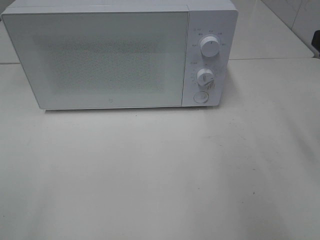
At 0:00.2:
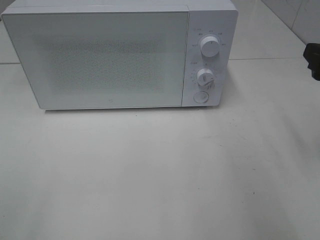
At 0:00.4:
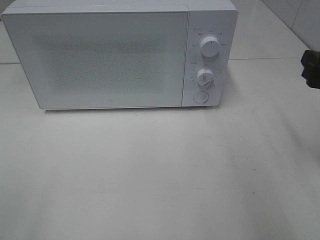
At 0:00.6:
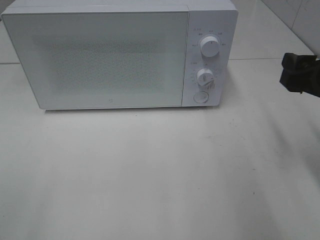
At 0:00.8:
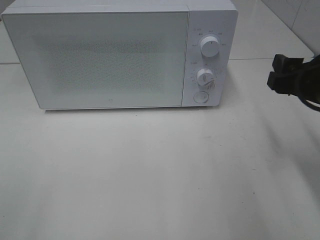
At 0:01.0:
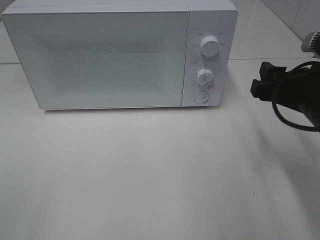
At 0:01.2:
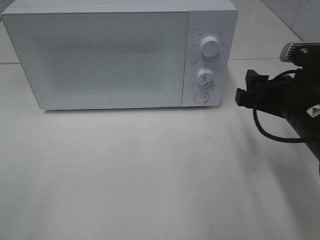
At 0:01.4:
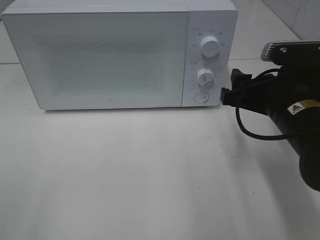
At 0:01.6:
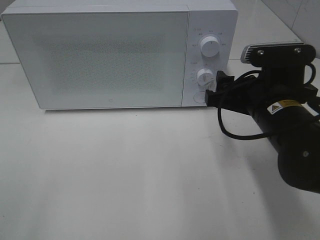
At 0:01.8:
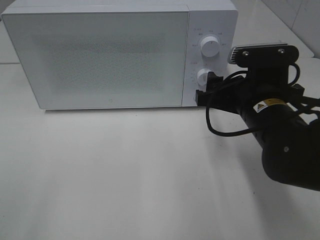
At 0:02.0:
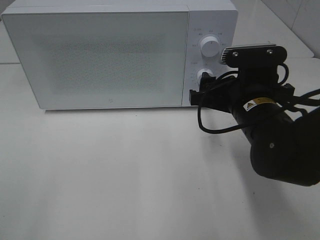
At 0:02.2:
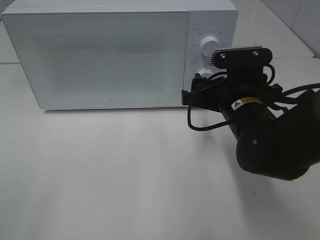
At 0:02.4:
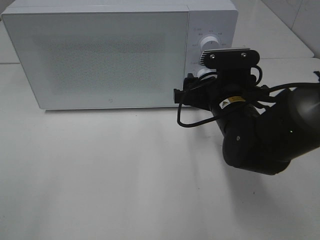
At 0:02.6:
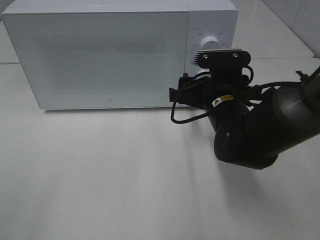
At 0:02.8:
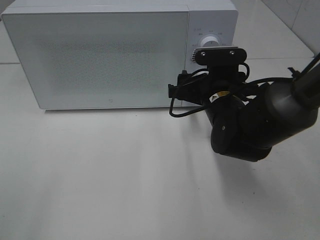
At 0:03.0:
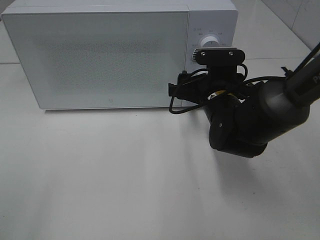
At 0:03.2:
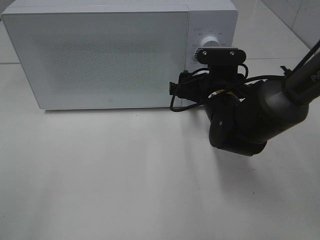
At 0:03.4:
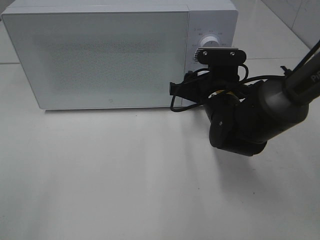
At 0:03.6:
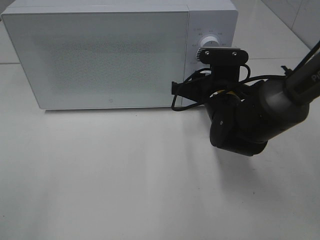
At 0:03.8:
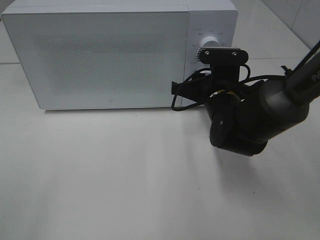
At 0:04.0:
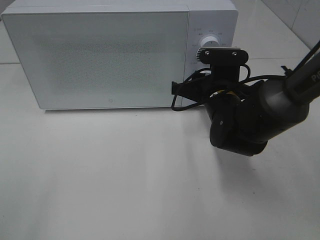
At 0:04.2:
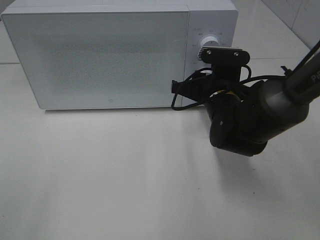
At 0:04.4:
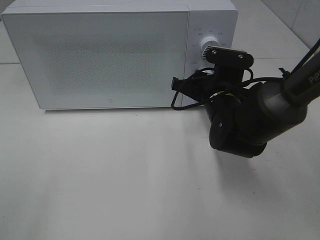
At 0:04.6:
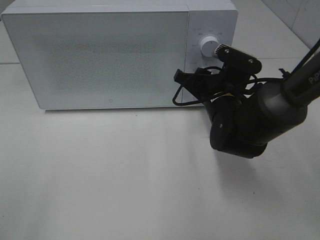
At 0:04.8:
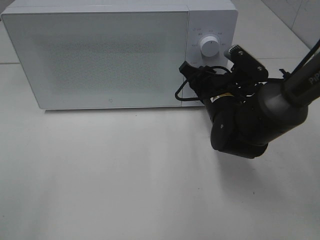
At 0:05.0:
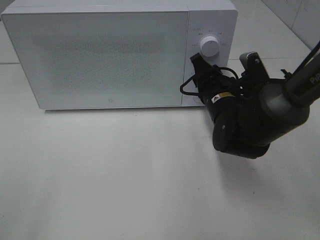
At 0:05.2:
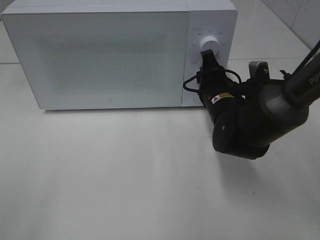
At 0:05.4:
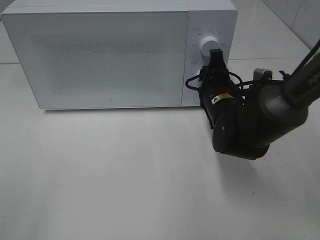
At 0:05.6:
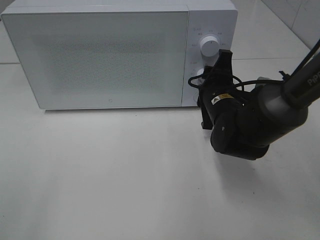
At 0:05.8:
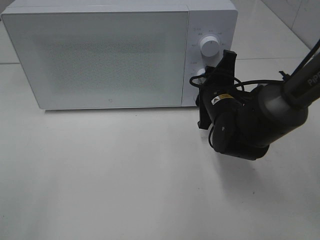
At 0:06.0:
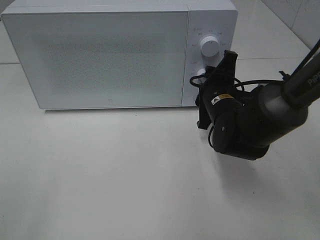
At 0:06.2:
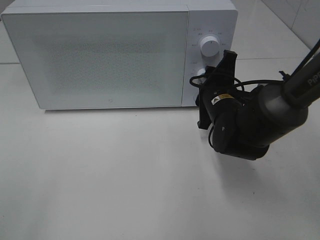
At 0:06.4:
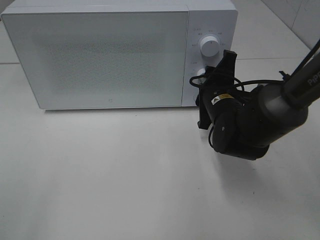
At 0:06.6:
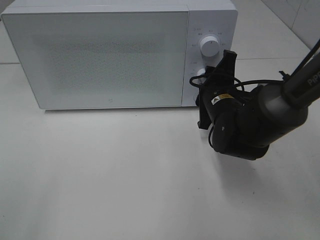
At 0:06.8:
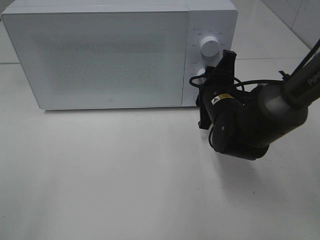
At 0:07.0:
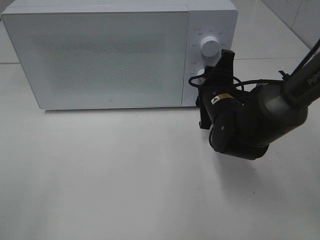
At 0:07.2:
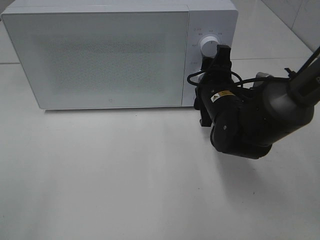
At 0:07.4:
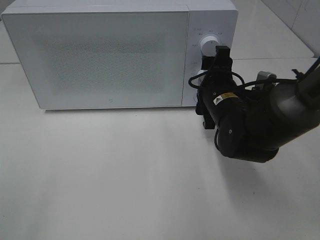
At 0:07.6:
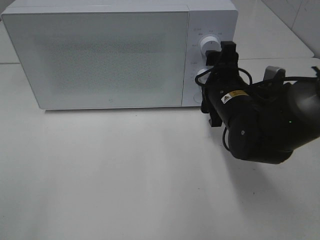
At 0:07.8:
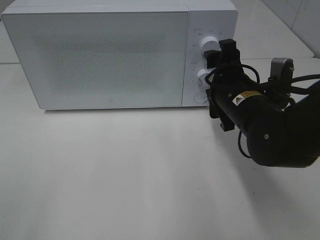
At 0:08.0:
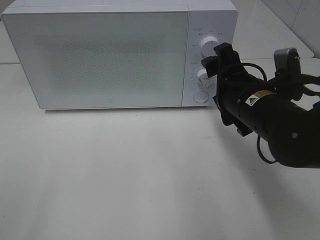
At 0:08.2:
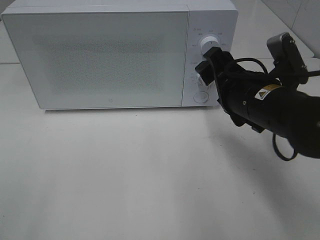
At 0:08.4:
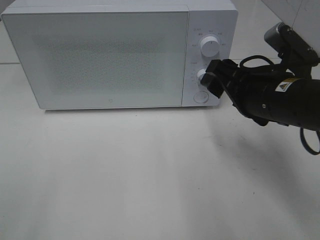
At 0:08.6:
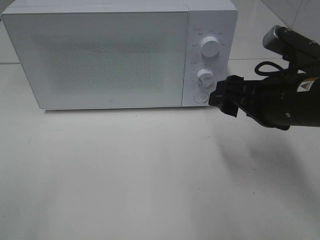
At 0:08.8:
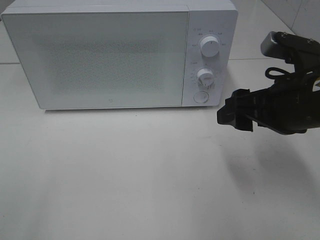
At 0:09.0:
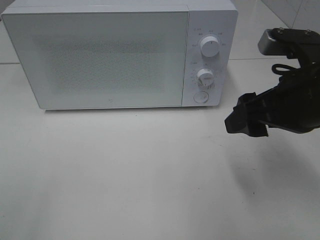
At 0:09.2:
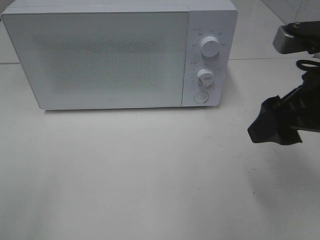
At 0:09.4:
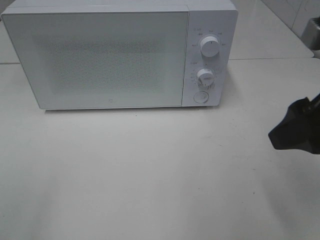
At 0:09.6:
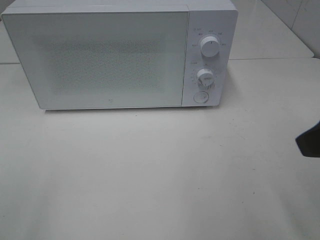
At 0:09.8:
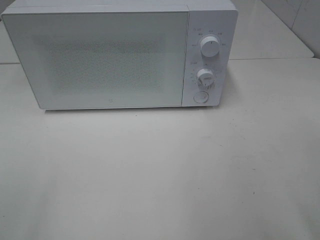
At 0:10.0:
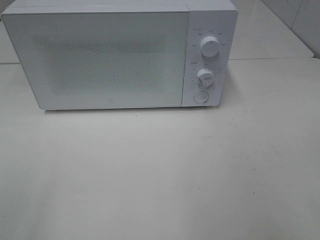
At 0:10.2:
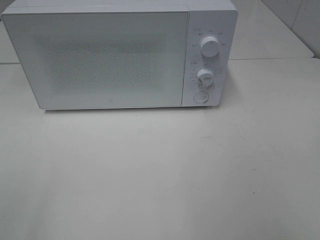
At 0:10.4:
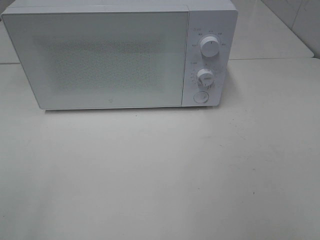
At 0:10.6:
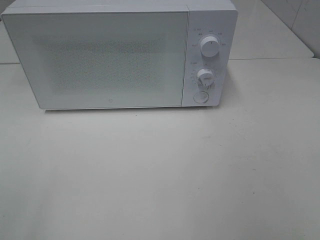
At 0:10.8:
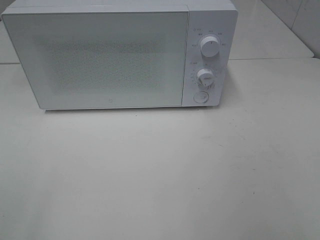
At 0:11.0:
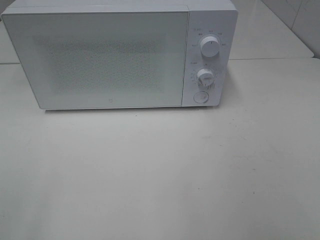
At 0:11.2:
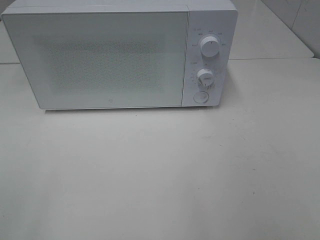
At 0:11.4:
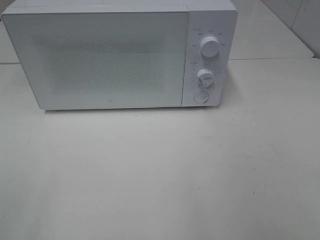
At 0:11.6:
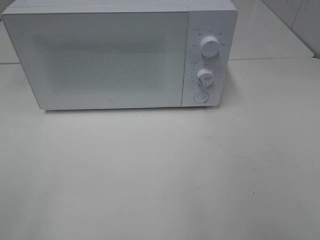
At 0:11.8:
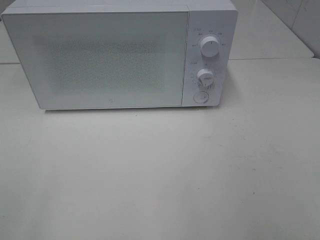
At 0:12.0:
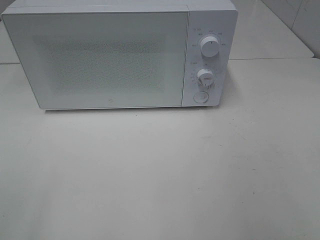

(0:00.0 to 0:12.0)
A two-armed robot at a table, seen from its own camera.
Task of the whole recording: Heat Sandwich.
Step, 0:00.0 - 0:07.6: Right hand: twist timer button.
0:00.0 - 0:01.6: The right gripper shifts about 15 cm to the left and downward.
0:01.6 - 0:03.0: The right gripper moves forward and downward, some 10 cm.
0:03.0 - 0:04.4: The right gripper closes its fingers.
0:06.0 - 0:07.6: The right gripper opens its fingers.
0:07.6 - 0:09.0: The right gripper shifts roughly 15 cm upward, backward and to the right.
0:09.0 - 0:10.4: The right gripper heads backward, to the right and upward, covering approximately 20 cm.

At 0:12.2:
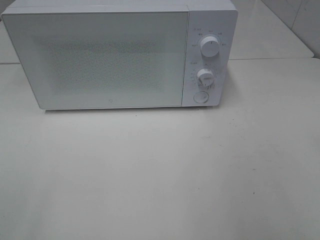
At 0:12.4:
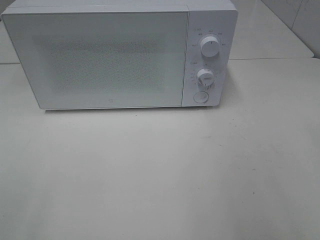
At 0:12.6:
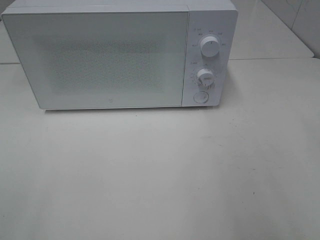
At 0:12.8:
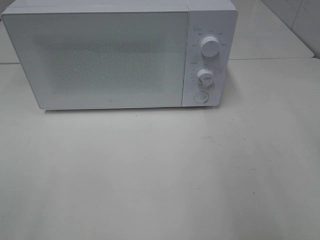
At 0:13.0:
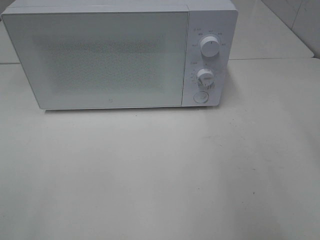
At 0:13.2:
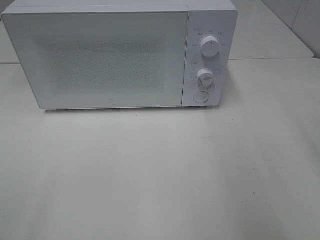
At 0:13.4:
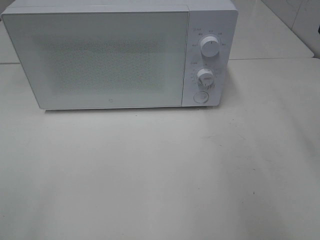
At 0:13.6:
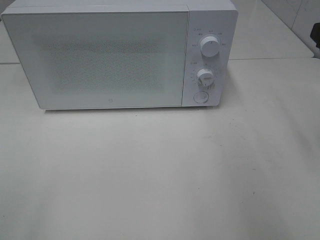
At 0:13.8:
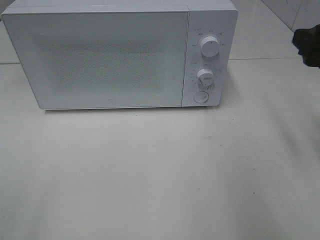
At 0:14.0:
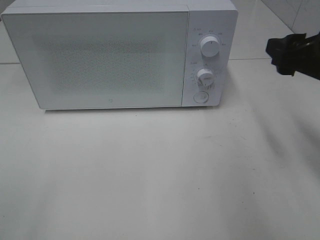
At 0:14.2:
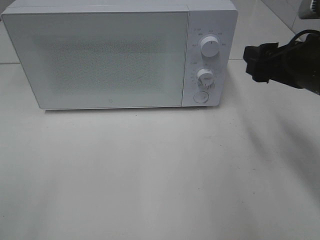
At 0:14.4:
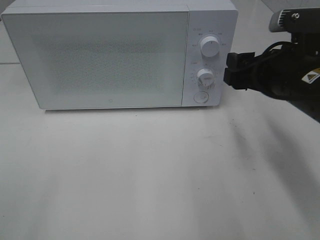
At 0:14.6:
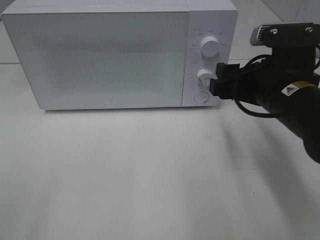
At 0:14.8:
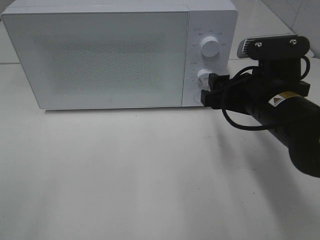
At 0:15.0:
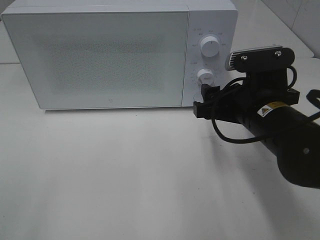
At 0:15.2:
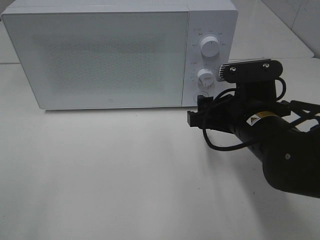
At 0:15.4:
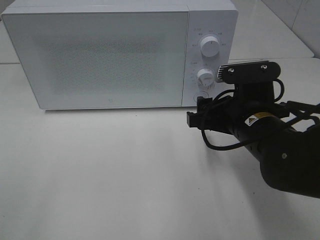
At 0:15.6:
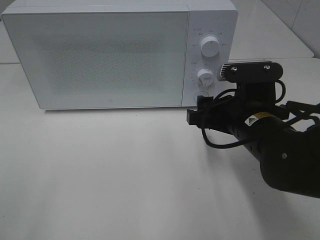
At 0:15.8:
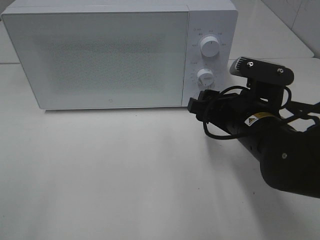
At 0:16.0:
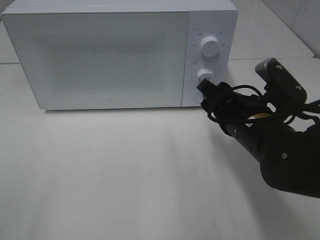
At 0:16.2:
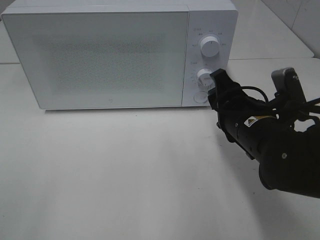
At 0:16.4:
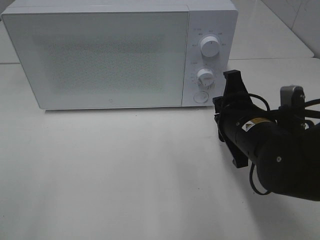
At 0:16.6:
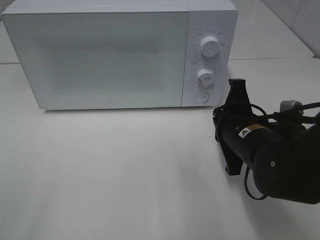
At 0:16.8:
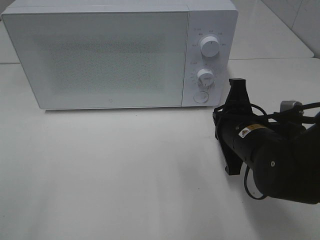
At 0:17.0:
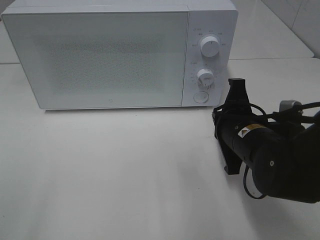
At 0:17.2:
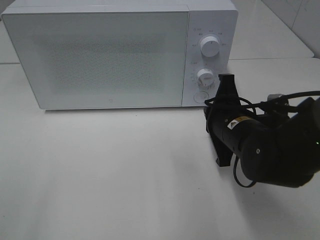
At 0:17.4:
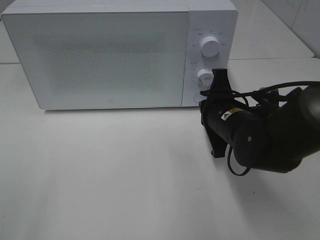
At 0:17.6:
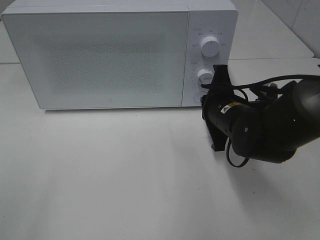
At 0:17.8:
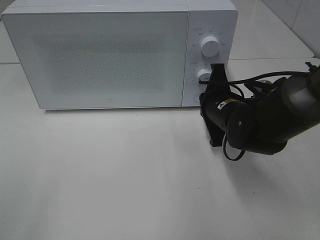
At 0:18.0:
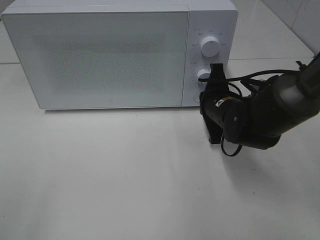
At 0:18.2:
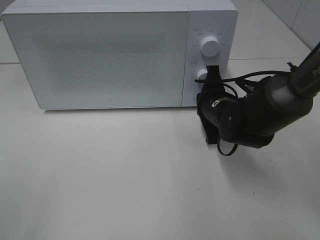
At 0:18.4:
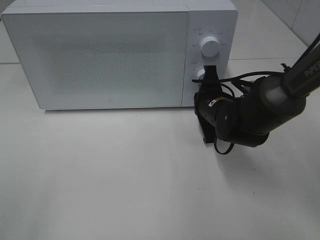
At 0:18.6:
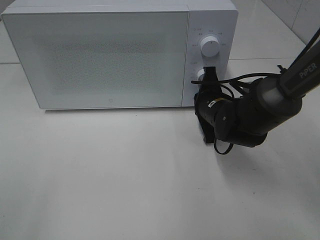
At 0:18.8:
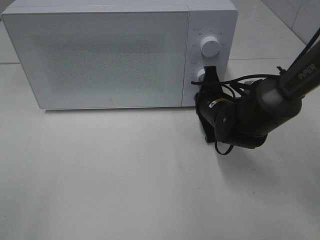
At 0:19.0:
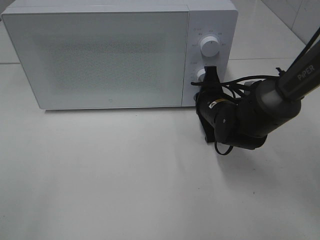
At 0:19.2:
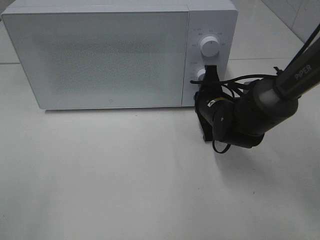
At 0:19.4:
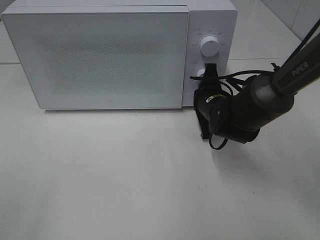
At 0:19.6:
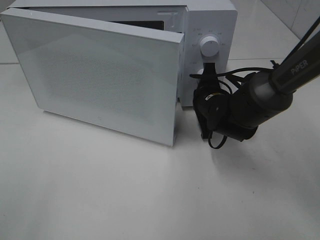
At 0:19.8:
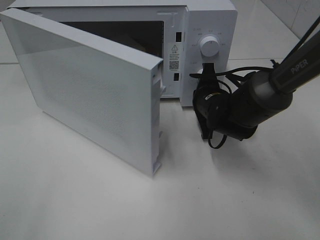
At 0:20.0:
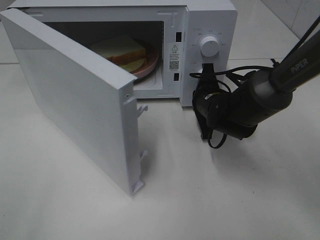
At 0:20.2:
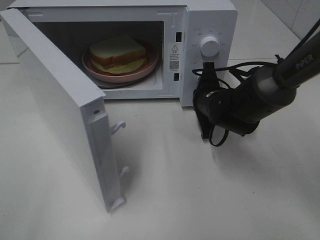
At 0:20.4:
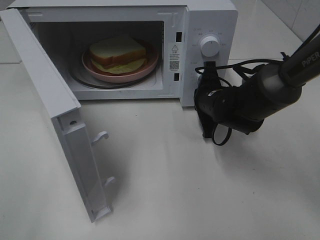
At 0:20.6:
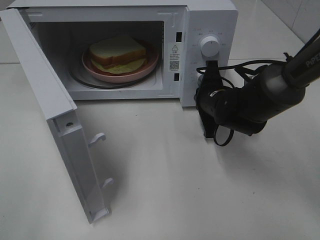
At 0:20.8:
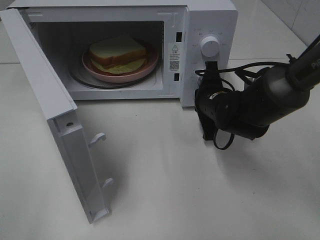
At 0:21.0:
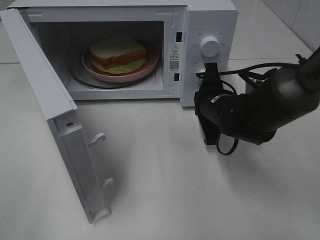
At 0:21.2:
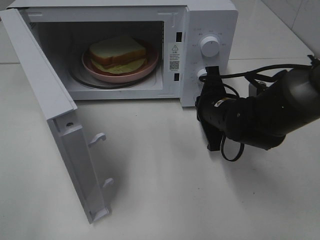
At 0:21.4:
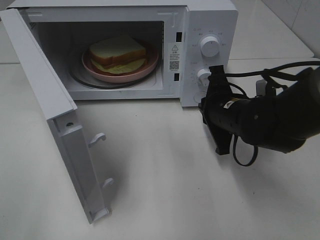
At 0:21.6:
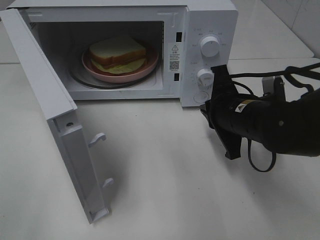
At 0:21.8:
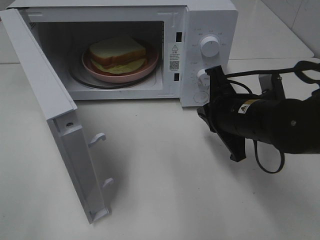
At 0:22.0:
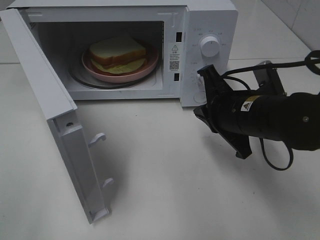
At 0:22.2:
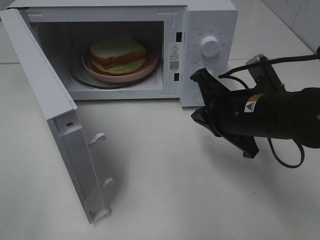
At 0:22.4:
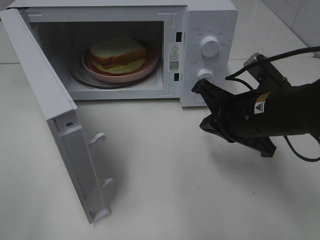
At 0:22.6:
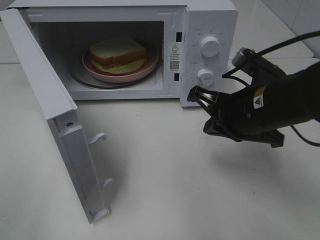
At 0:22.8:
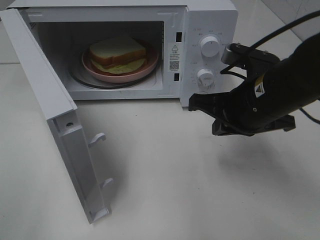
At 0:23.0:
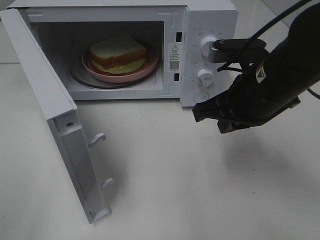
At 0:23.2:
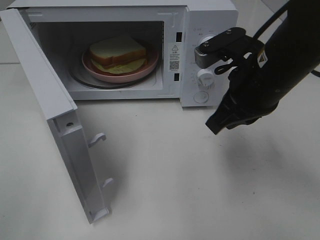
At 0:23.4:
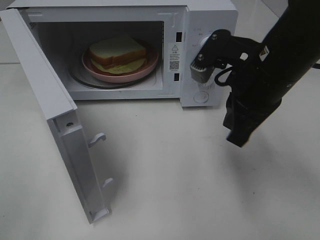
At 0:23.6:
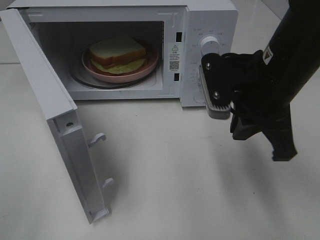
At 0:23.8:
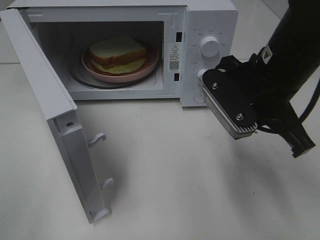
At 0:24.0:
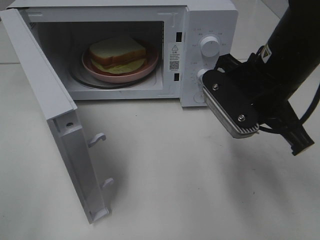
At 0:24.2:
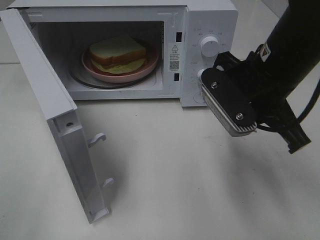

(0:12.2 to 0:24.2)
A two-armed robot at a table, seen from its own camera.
Task of the whole recording: Heat Sandwich.
Step, 0:12.2 - 0:20.8: Right hand: press the switch.
0:12.2 - 0:13.8: The right gripper moves forward, roughly 20 cm.
0:13.8 - 0:15.2: The right gripper shifts approximately 15 cm to the left and downward.
0:15.2 - 0:16.6: The right gripper closes its fingers.
0:16.6 - 0:18.2: The right gripper shifts about 10 cm forward.
0:19.8 - 0:21.2: The right gripper shifts roughly 5 cm backward.
0:21.2 - 0:22.6: The right gripper goes roughly 10 cm upward and backward.
0:22.6 - 0:24.2: The right gripper heads upward, covering about 5 cm.
